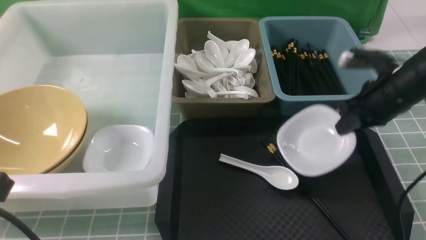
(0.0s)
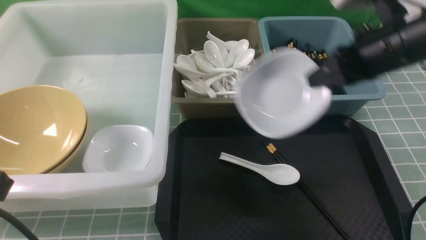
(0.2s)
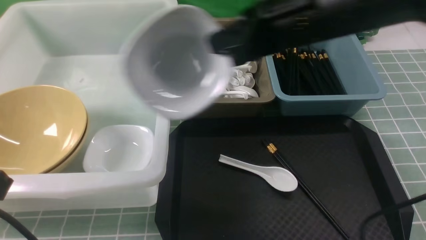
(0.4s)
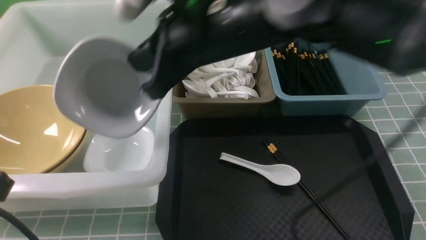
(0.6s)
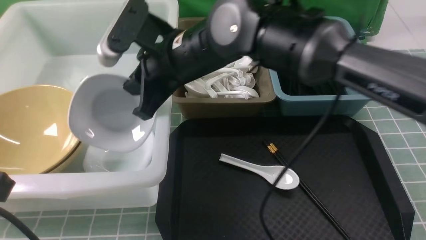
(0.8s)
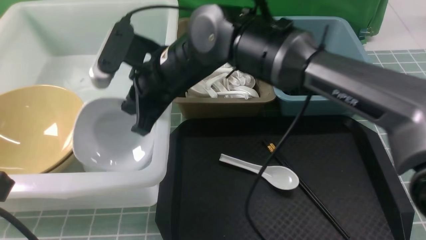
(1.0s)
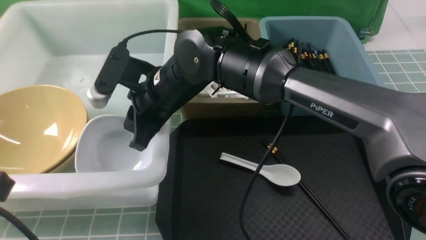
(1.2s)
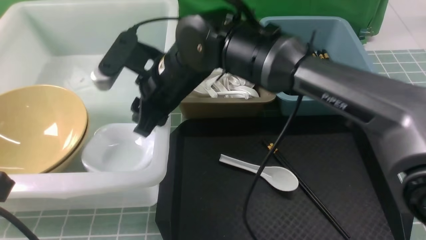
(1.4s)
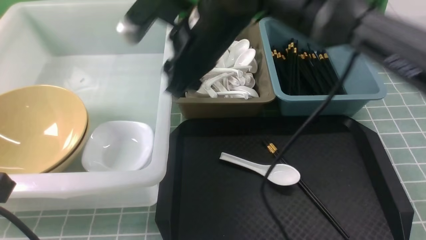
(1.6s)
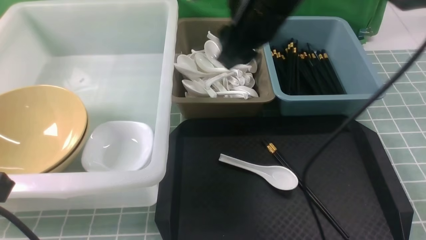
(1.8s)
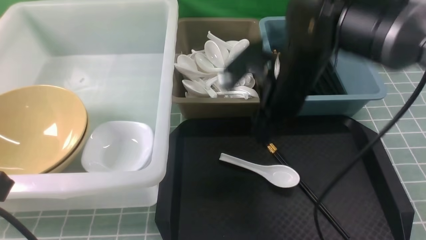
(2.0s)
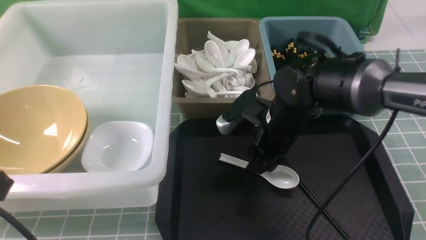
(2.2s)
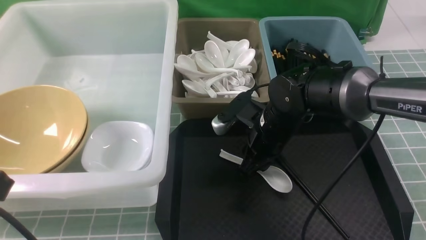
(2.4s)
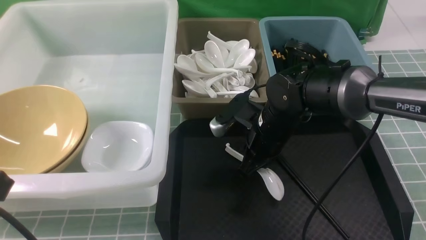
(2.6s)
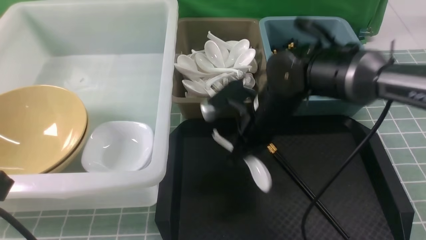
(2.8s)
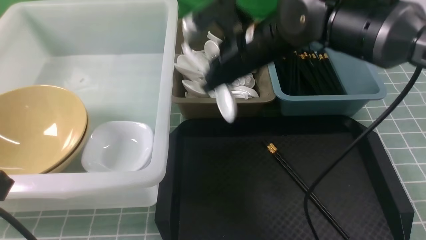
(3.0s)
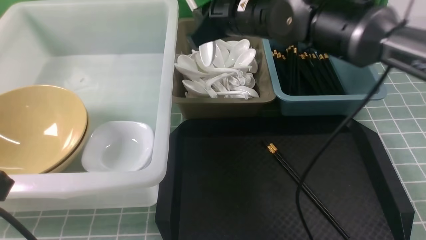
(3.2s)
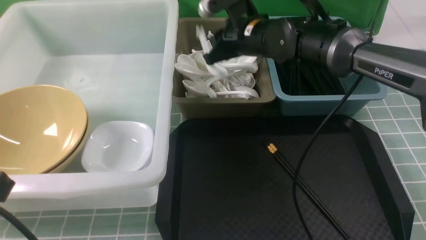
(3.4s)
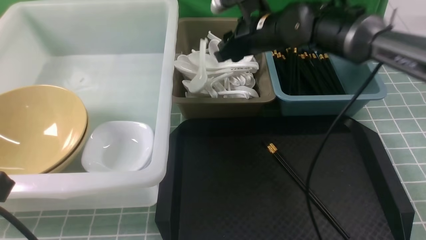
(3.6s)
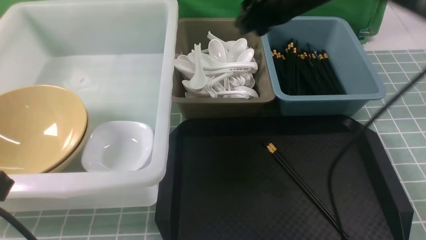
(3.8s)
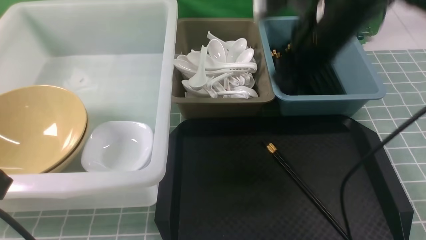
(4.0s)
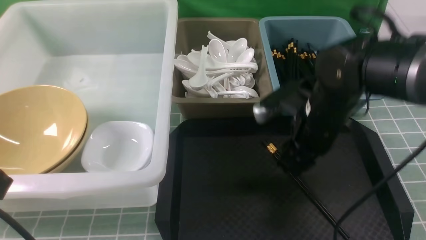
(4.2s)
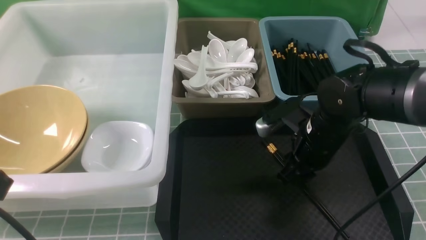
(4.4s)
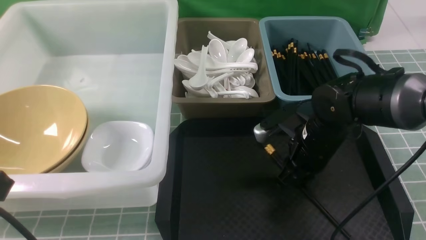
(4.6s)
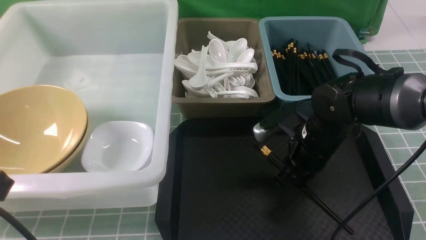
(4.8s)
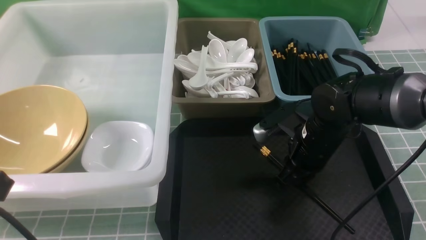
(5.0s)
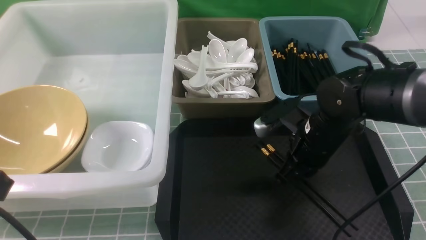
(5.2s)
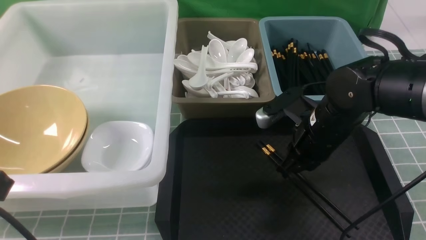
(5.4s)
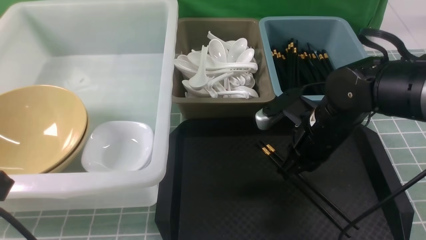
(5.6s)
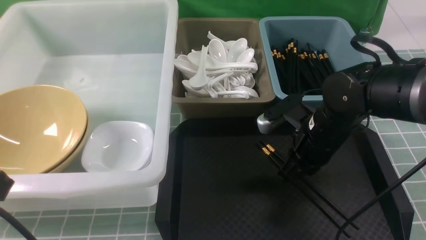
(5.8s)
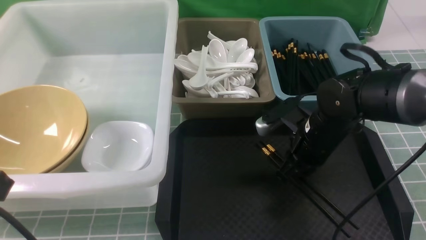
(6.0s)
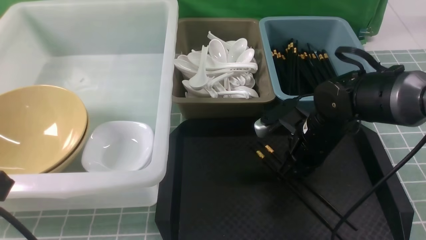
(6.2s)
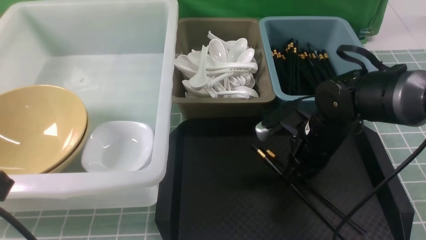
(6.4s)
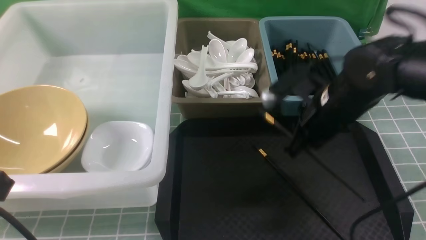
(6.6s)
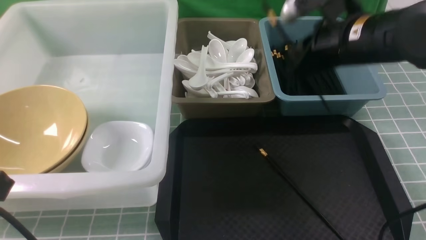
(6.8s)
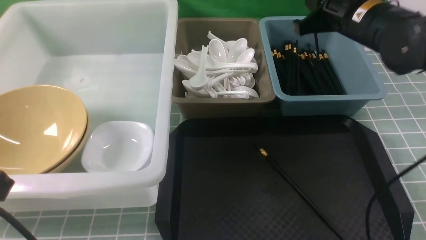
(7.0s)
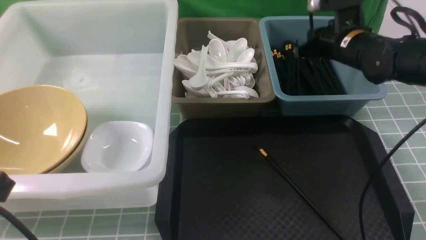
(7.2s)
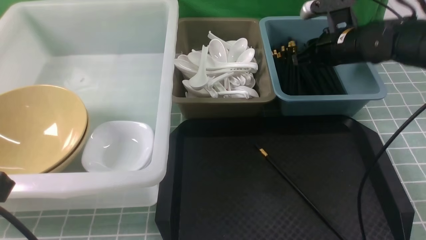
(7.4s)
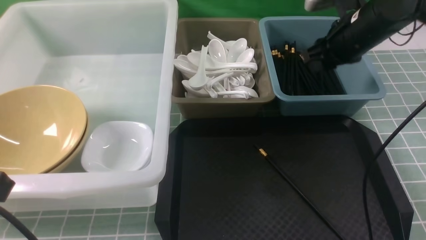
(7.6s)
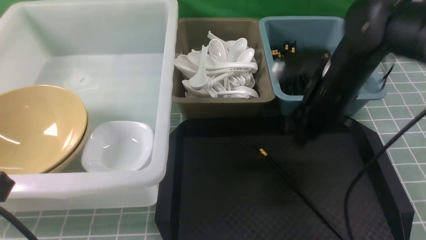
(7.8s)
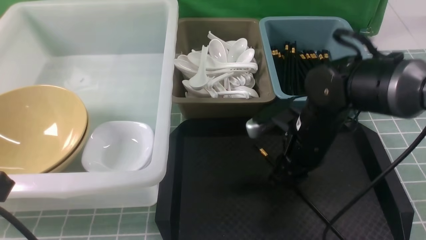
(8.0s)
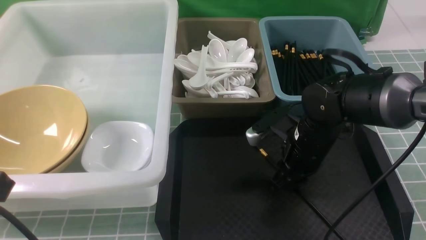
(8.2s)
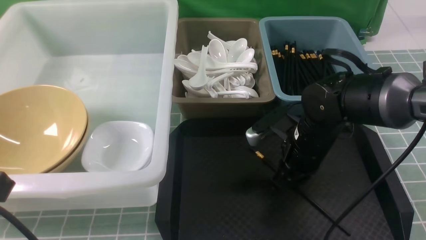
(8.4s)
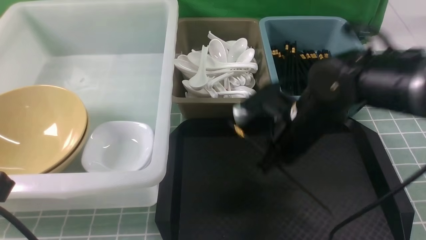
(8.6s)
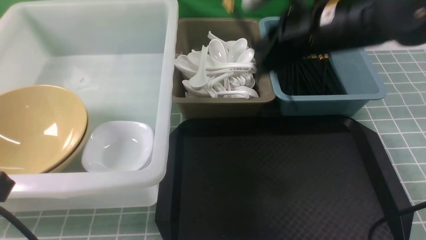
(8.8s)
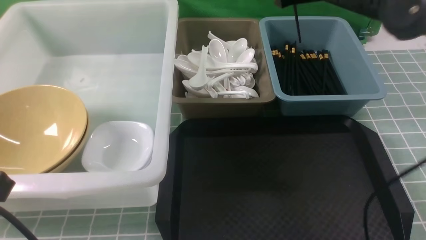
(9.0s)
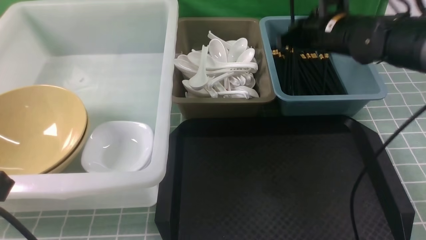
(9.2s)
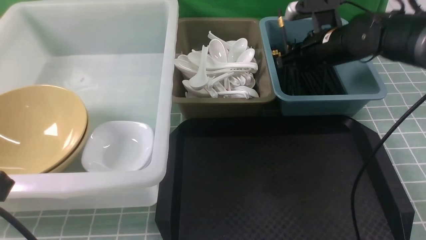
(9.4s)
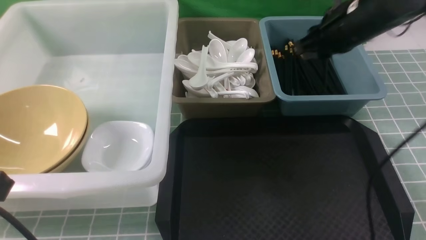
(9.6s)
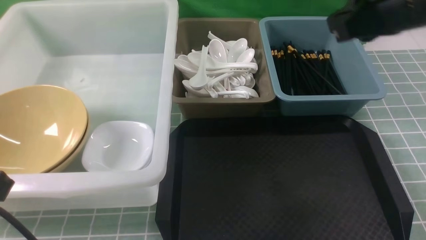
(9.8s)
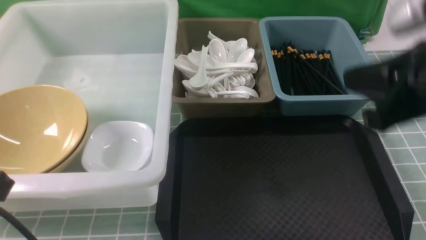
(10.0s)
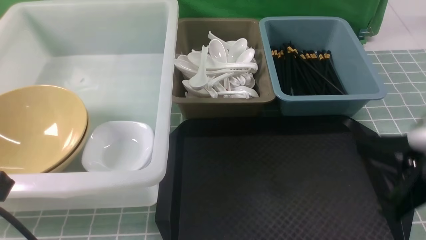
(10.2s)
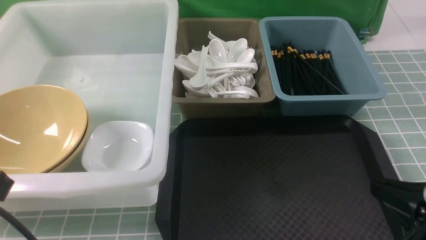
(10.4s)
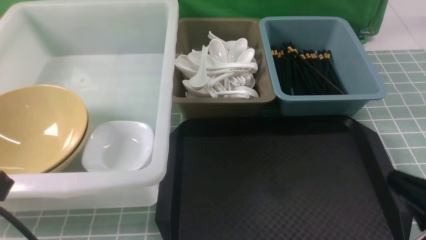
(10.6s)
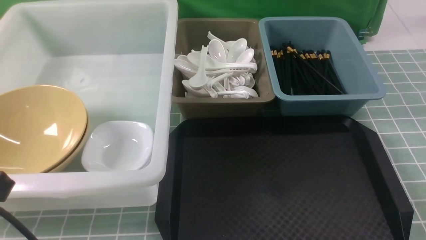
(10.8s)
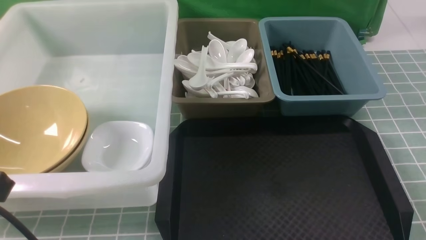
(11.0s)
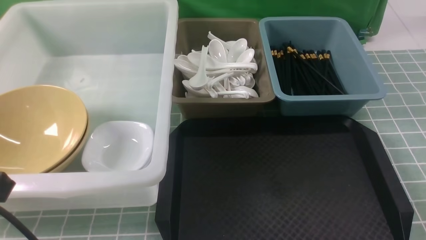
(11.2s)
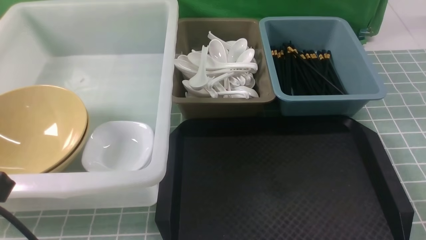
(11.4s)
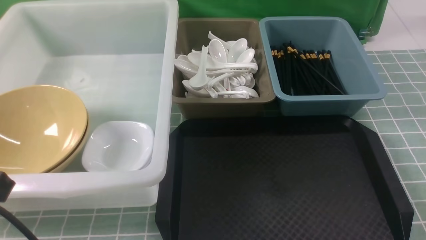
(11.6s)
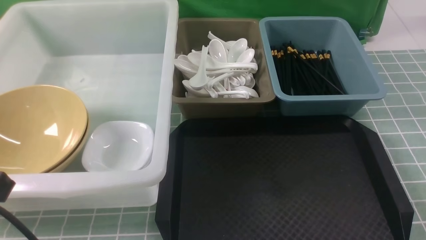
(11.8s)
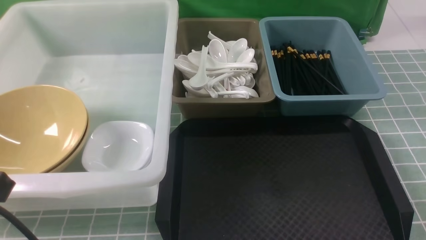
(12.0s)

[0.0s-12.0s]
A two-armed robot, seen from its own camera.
Task of the whole recording: on blue table put chopsticks spoon bowls plates into blue grey white boxes.
Step, 0.0s to 1.4s: use the right arm to put the plate into the large storage box on the left.
Step, 1.6s to 2.6s: use the right arm to grab the soup spoon in the middle.
Step, 2.8s to 3.6s: use the right arm to put the soup spoon into the small storage box in the middle.
Step, 3.8s to 6.6s: use the right arm to grab a chopstick.
Step, 6.8s to 7.4s: use the right arm to put a chopstick into the small storage box on the right.
Step, 7.6s to 8.6s: use the right arm to grab a chopstick.
Step, 8.8s to 9.4s: use the right arm to put a chopstick into the small storage box on the right.
0.0s to 1.6s: The right gripper heads to the left, covering about 20 cm, and opens its fingers.
1.6s to 3.0s: The right gripper travels downward by roughly 5 cm, and closes up.
3.0s to 4.4s: The right gripper heads downward, to the right and backward, covering roughly 15 cm, and opens.
4.4s to 6.0s: The right gripper closes its fingers.
6.0s to 7.6s: The right gripper shifts about 10 cm upward and forward, and opens its fingers.
7.6s to 9.0s: The right gripper moves upward, roughly 5 cm, and closes.
9.0s to 10.4s: The right gripper moves backward, approximately 25 cm.
10.4s to 12.0s: The right gripper goes approximately 10 cm downward, backward and to the right.

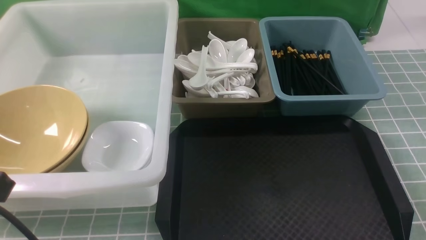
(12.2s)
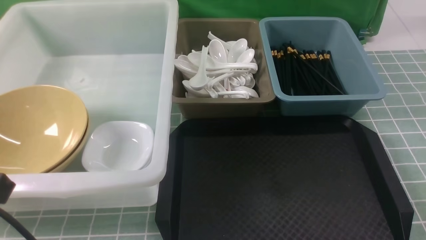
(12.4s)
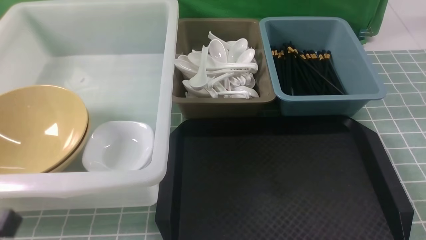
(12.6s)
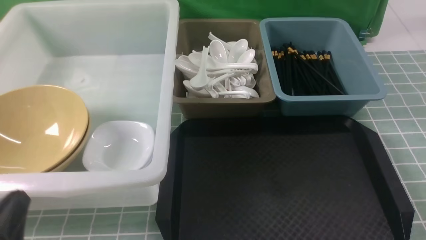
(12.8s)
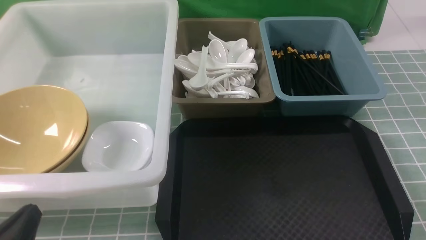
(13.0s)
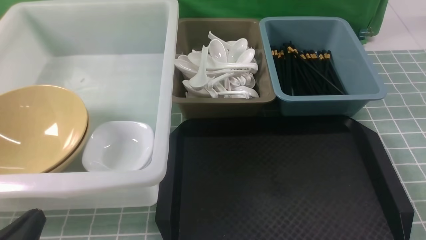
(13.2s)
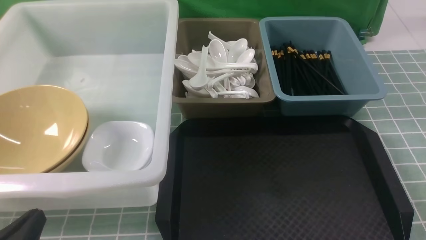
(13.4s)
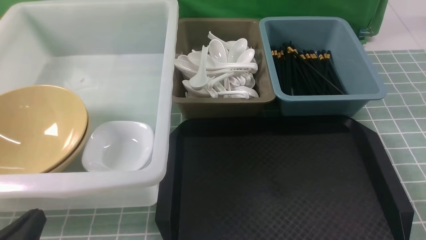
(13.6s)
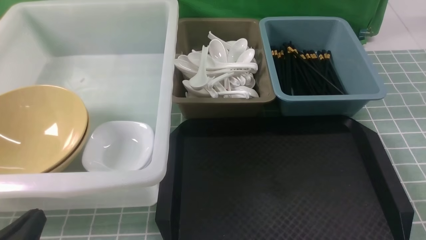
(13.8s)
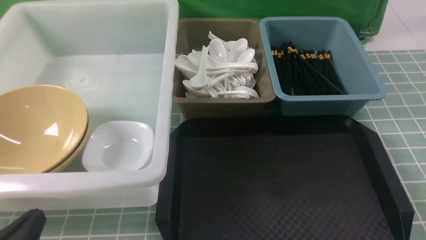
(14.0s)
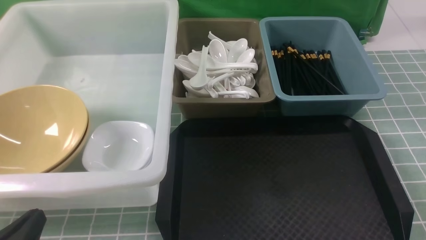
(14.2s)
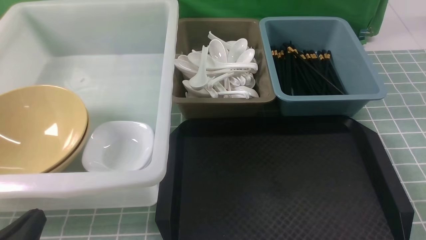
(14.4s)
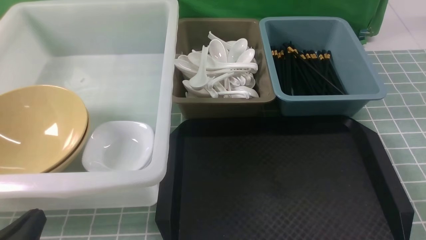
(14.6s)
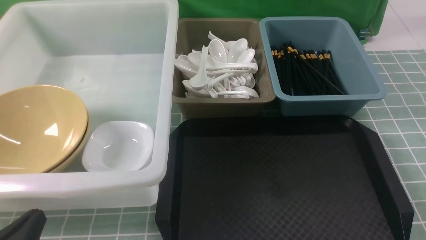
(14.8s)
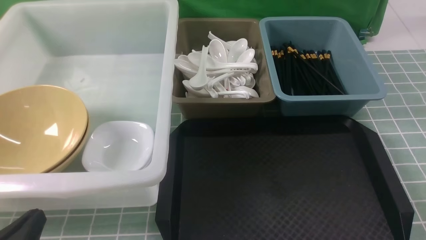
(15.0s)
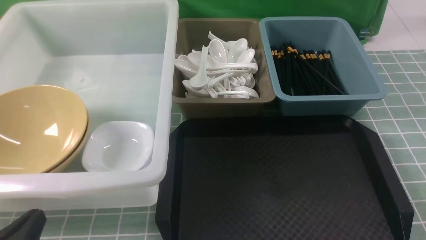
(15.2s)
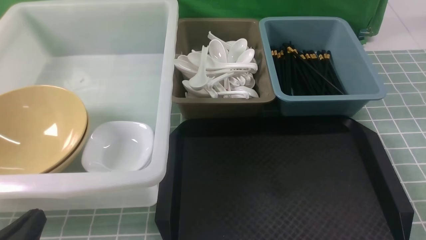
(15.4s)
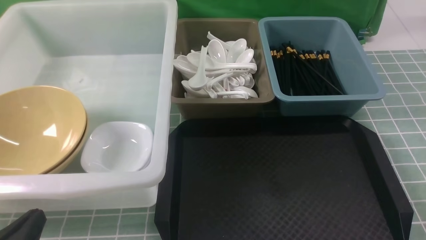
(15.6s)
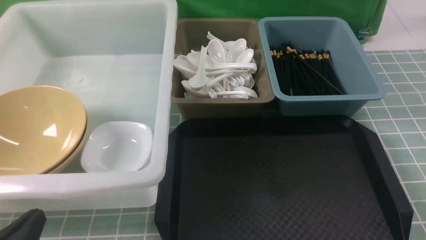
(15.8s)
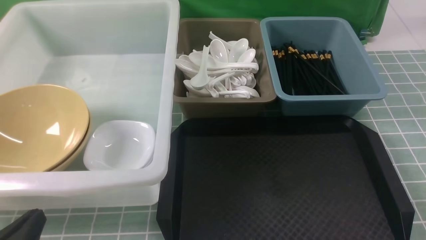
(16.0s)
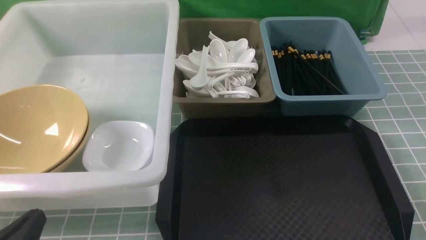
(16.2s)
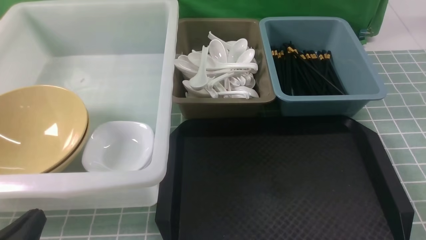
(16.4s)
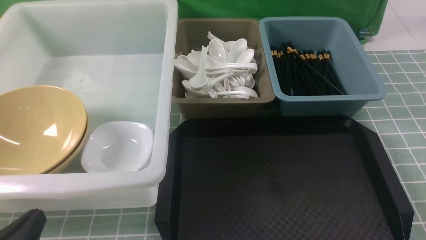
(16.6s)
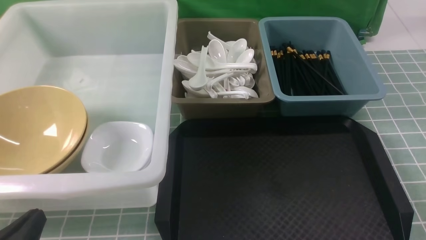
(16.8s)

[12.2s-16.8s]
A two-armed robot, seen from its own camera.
Task of the whole recording: on blue table put chopsticks spoon bowls plates into blue grey white boxes.
12.2s to 13.8s: The left gripper travels downward by some 10 cm.
13.8s to 16.8s: Neither gripper changes place.
